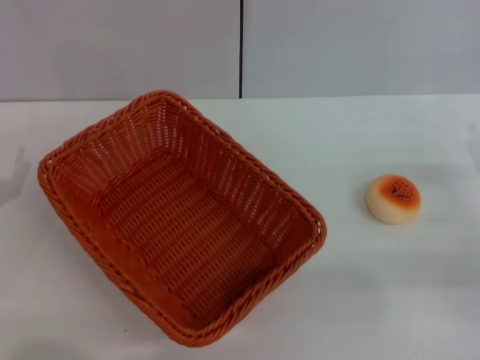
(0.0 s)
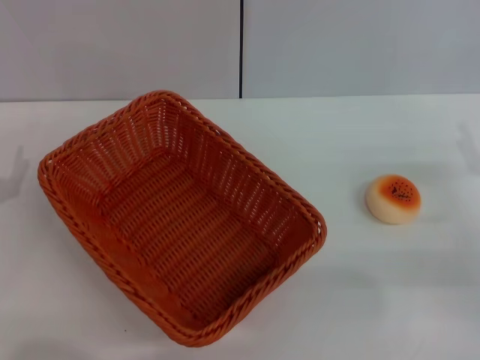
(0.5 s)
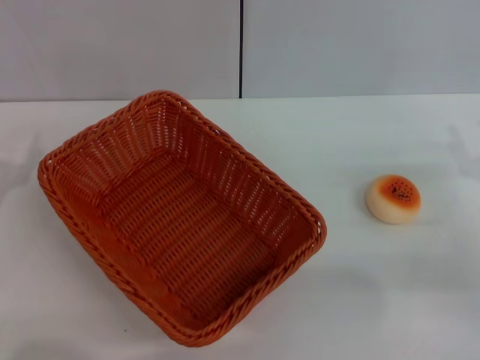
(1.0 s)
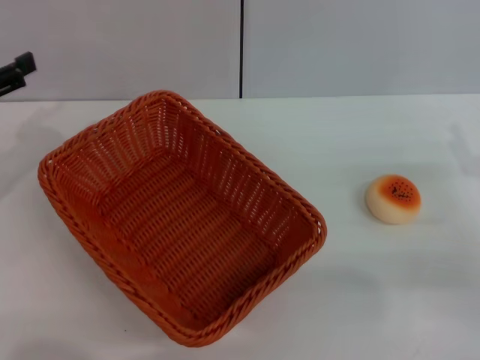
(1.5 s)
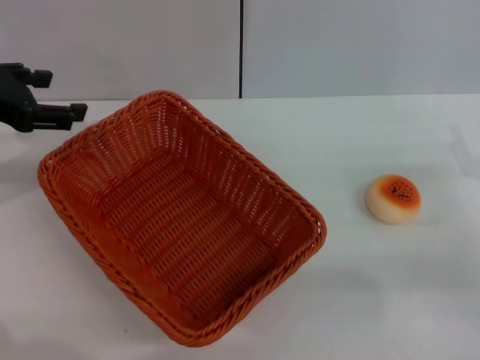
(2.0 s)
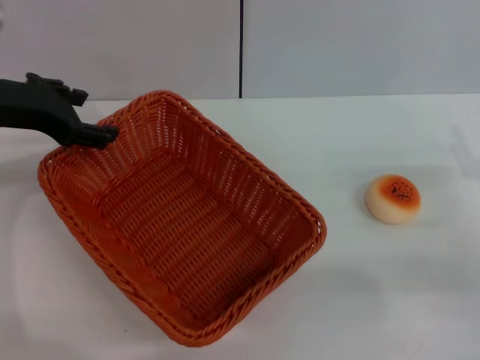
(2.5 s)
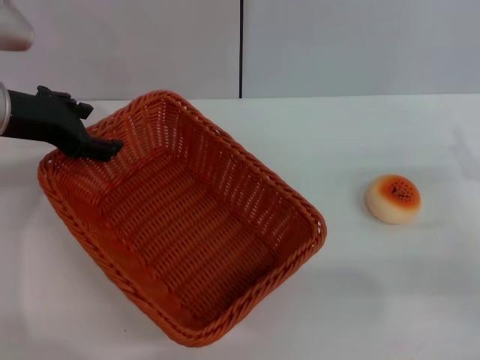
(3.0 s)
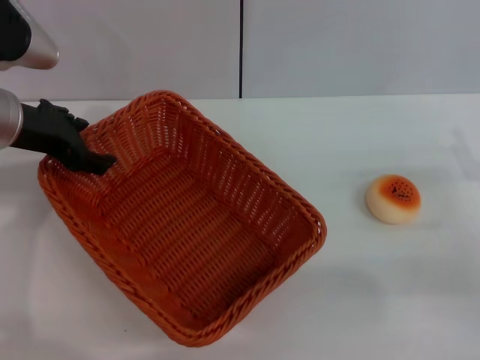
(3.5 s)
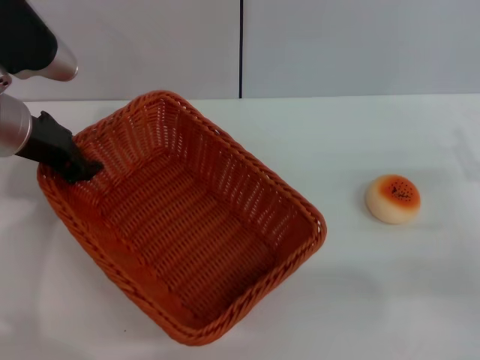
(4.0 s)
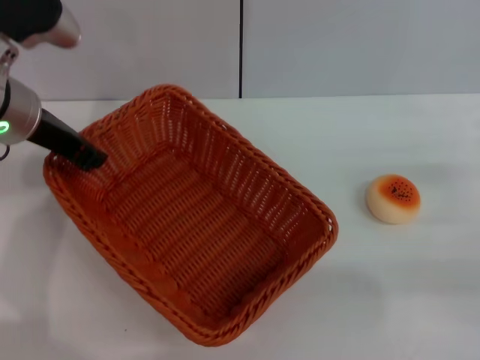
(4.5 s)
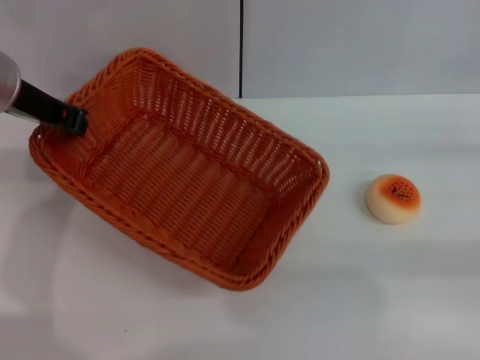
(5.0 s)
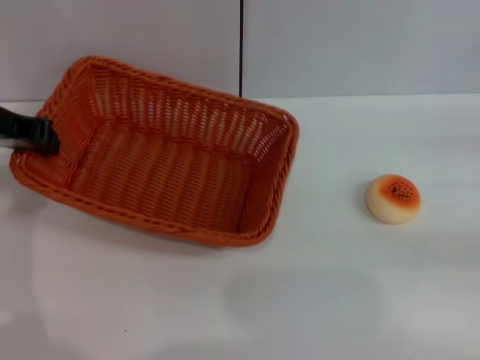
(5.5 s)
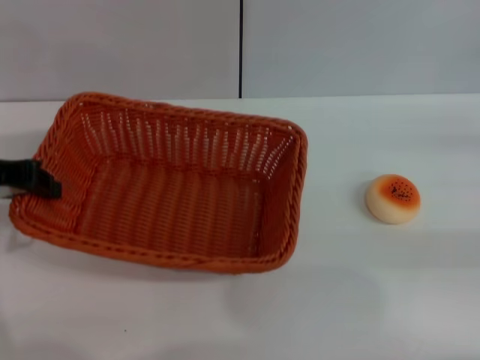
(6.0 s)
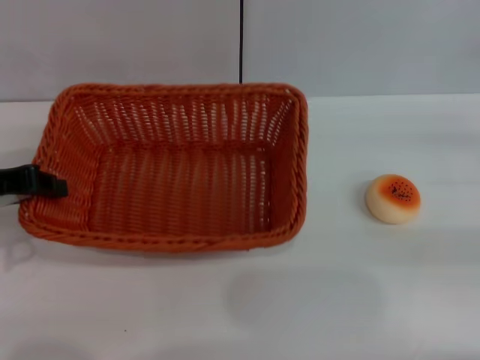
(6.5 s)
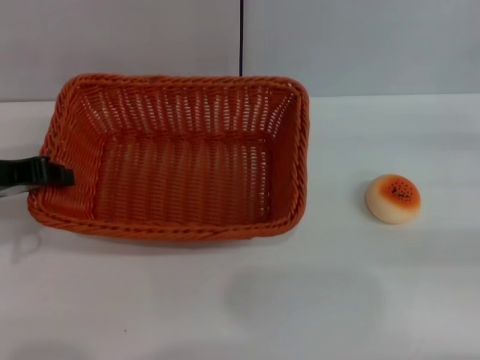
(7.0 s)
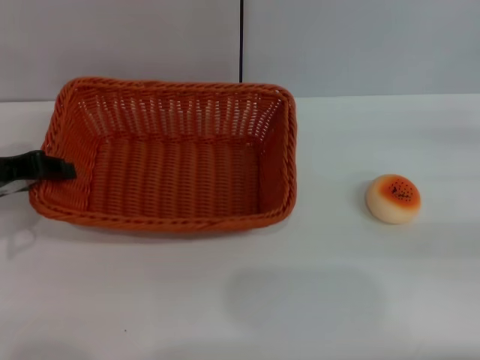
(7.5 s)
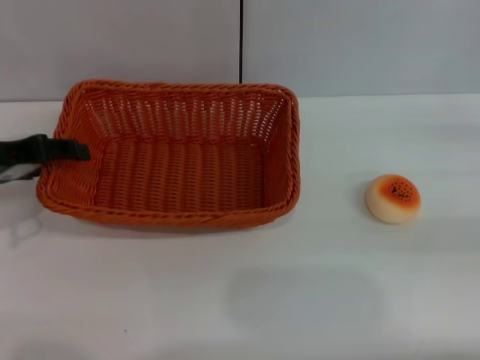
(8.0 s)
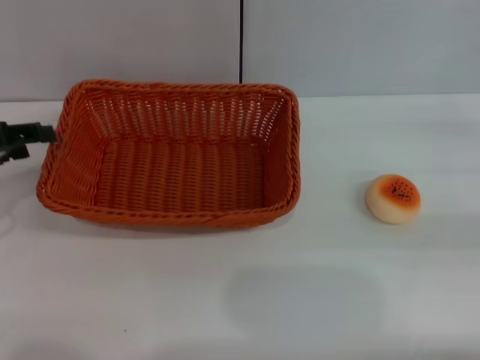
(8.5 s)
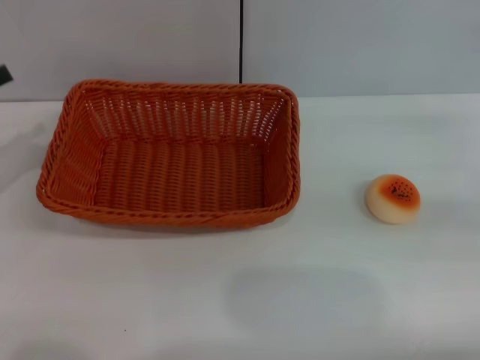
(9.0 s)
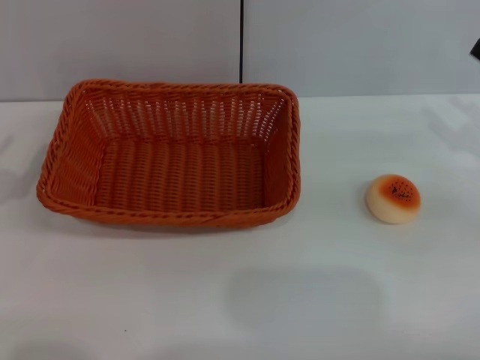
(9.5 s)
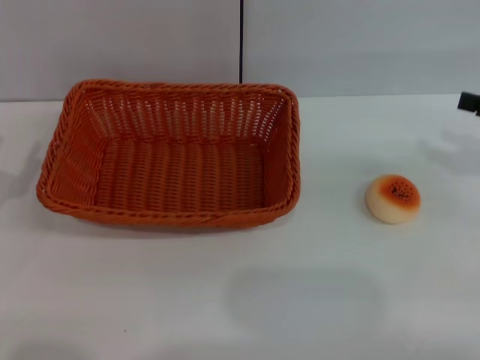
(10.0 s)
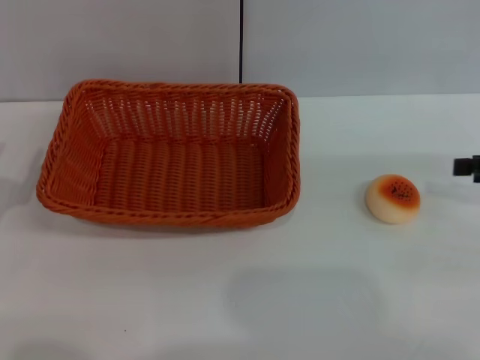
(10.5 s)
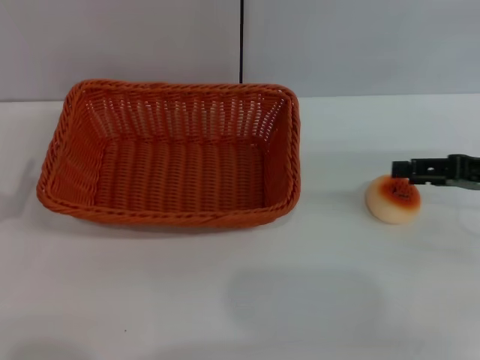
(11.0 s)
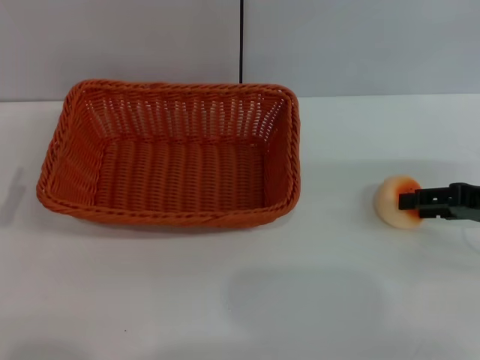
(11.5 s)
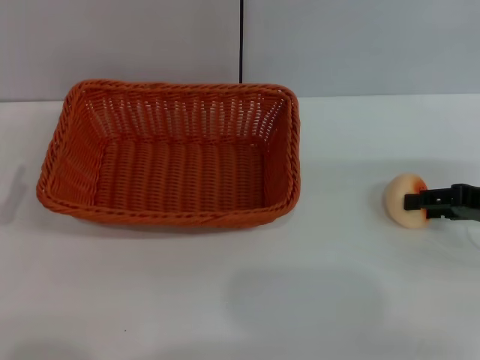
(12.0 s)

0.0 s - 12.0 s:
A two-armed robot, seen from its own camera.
Step, 0.0 s - 8.5 s: Move the basket to the center of view with the left gripper.
0.0 s - 2.0 s: The left gripper goes approximately 20 cm upward and forward.
2.0 s - 4.0 s: The left gripper travels to the right by some 5 cm, and closes up.
4.0 s - 6.0 s: The left gripper goes about 5 cm to the left, and closes; the right gripper goes approximately 10 cm to the right and upward.
6.0 s - 8.0 s: The left gripper opens.
8.0 s - 10.0 s: The left gripper travels downward, backward and to the left by approximately 15 cm.
10.0 s - 12.0 s: The right gripper goes roughly 5 cm downward.

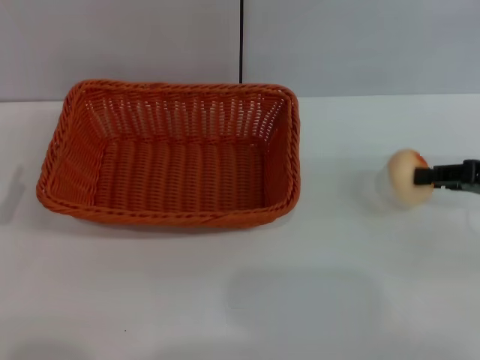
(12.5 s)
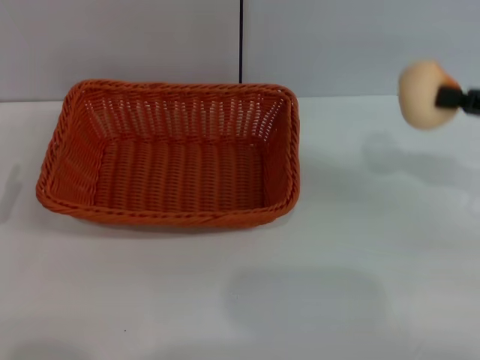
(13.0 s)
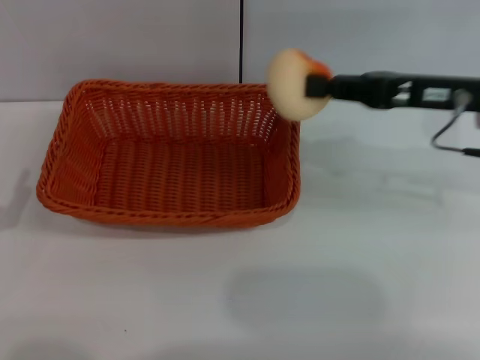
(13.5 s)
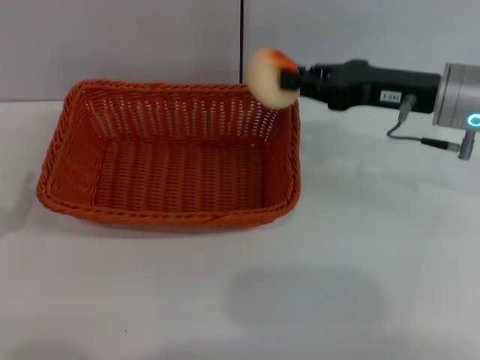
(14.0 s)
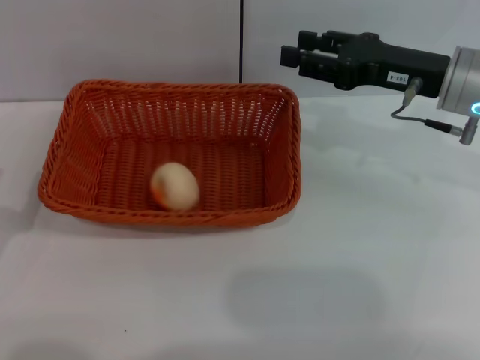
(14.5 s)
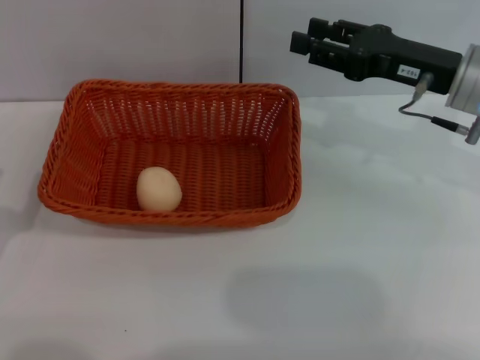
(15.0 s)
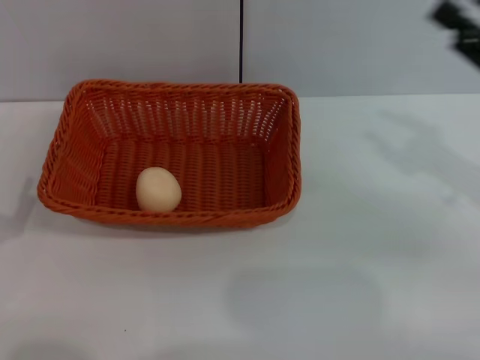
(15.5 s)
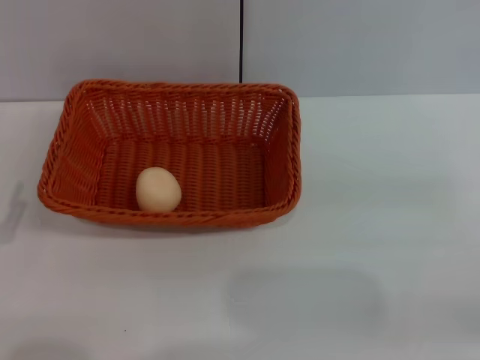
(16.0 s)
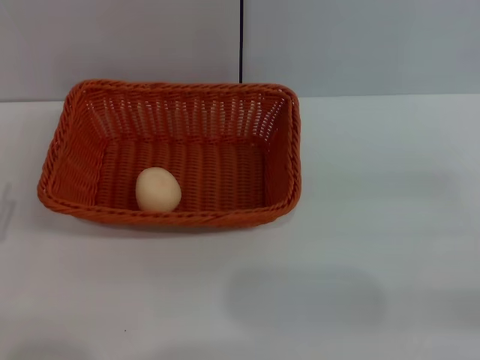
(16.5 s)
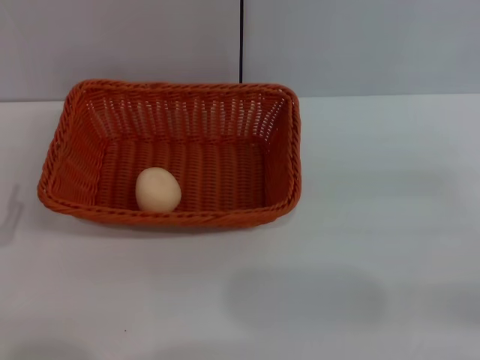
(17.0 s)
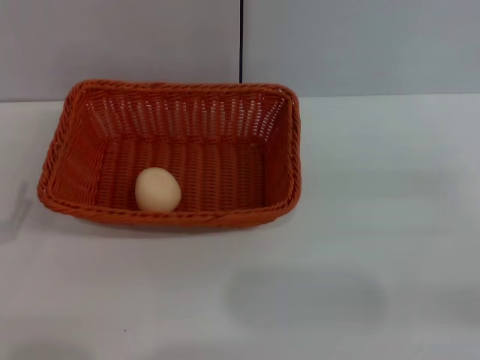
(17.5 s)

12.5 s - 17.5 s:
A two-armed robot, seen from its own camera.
Step, 13.0 s - 14.5 s: Place the egg yolk pastry into the basket with the right gripper.
12.5 s - 15.0 s: The right gripper heads to the left and forward, covering roughly 15 cm, and opens.
15.0 s - 17.5 s: The right gripper is displaced backward and to the right by some 20 cm.

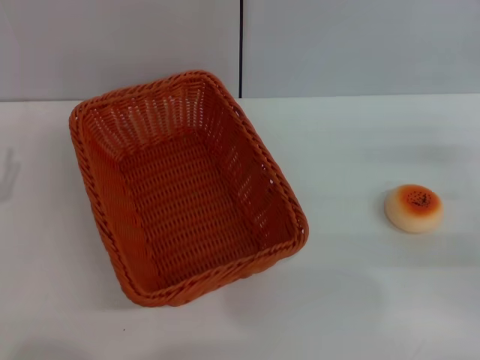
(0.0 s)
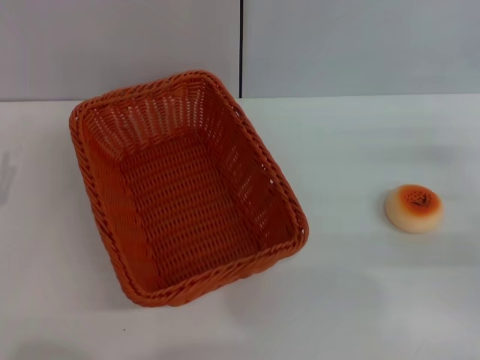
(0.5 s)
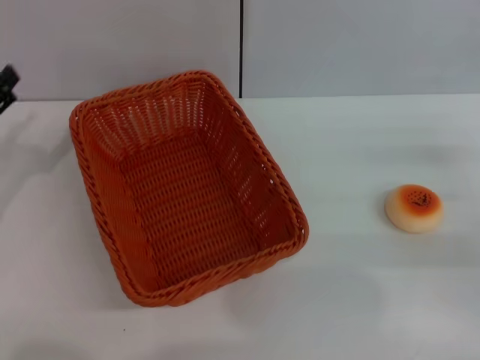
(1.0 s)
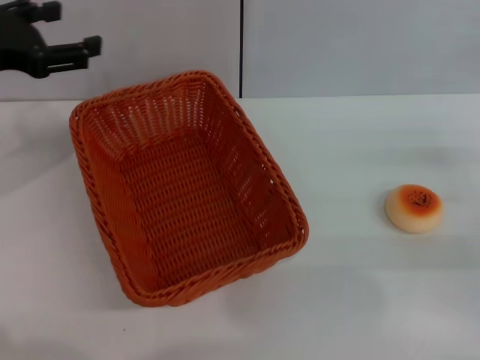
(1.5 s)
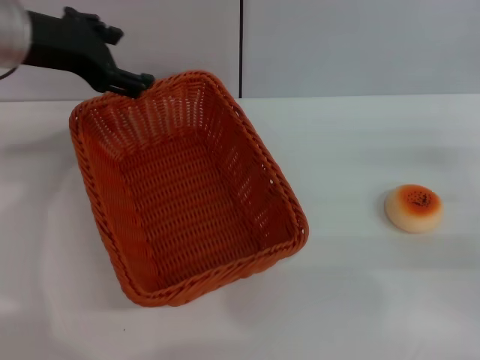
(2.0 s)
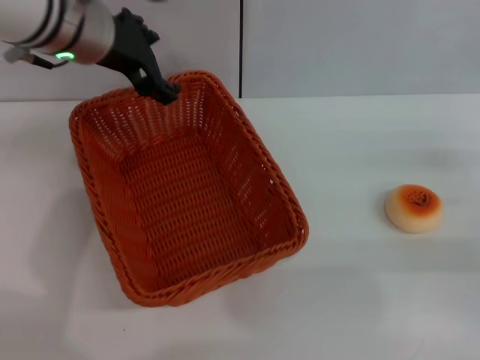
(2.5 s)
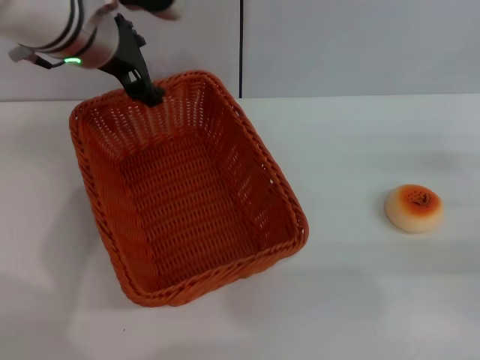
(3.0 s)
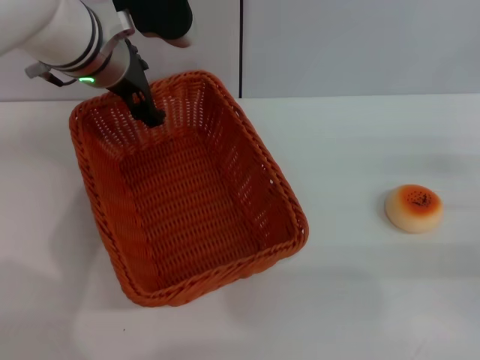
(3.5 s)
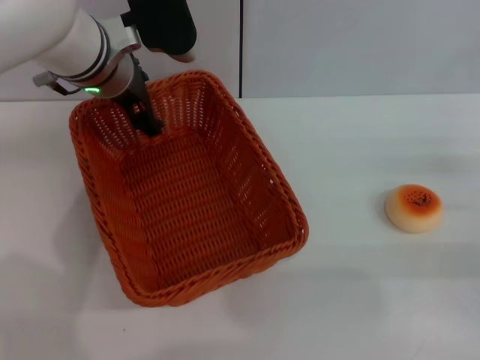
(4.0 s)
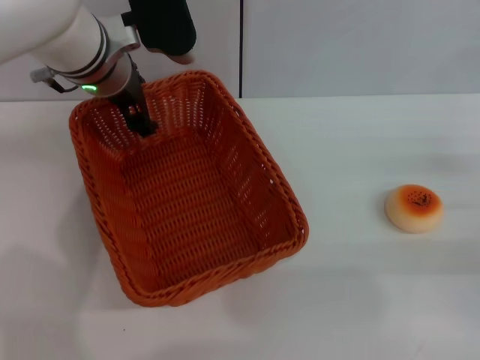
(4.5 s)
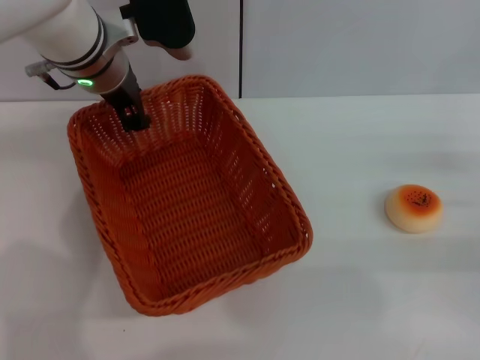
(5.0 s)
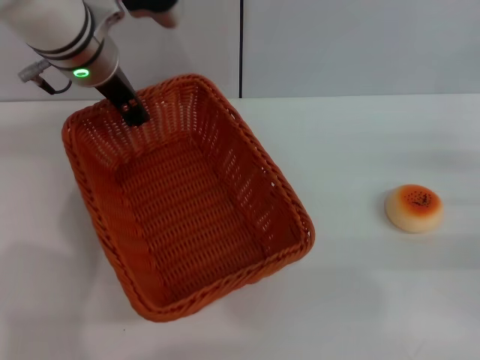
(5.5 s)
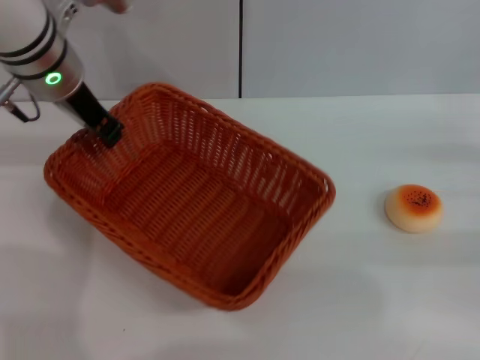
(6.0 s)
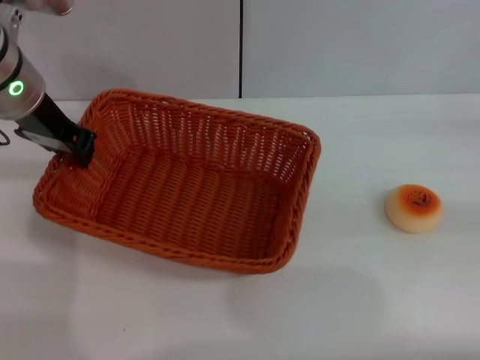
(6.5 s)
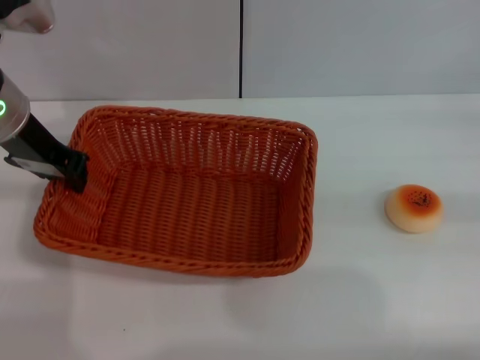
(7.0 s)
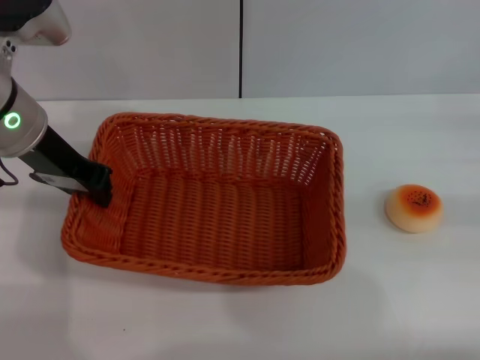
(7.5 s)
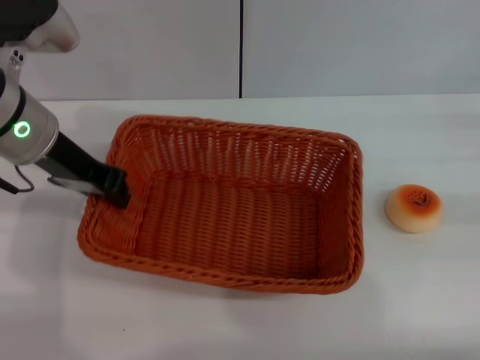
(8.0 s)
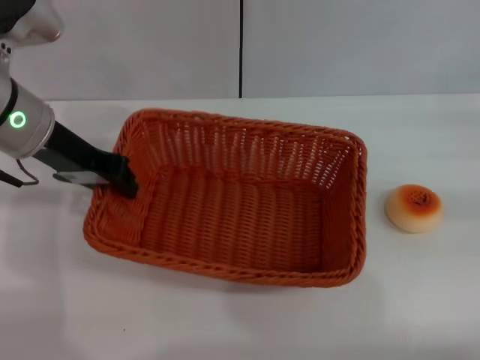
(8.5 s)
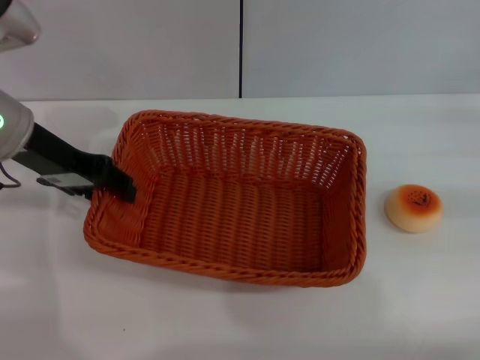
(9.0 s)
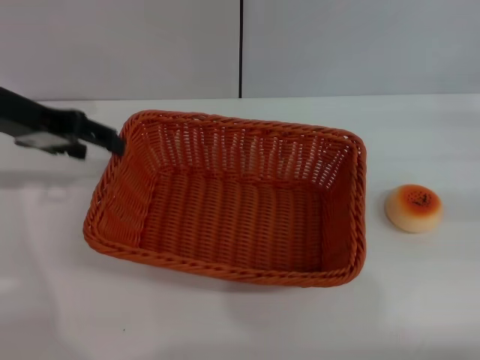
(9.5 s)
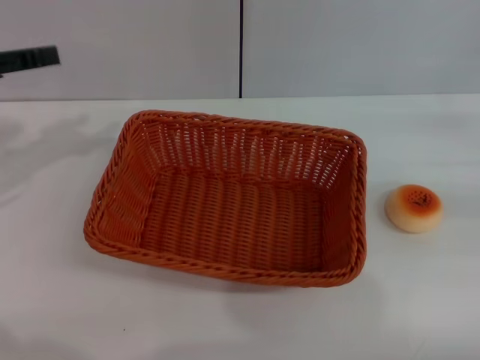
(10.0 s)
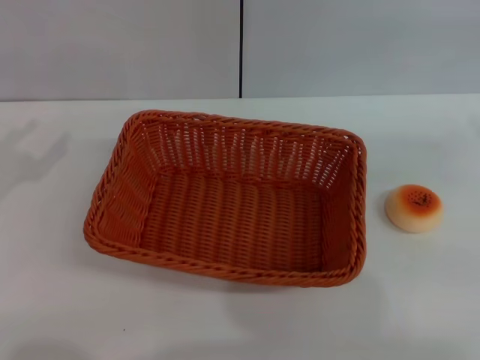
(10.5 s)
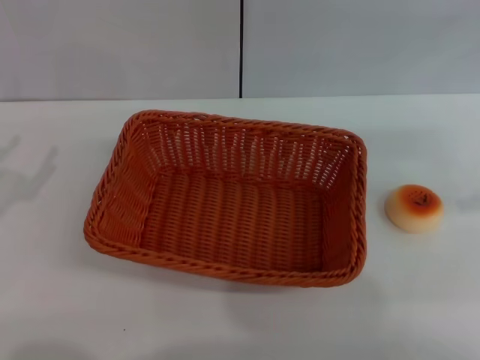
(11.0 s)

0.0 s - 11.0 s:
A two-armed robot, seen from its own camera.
Step, 0.0 s - 9.5 s: Move the basket to the center of view with the left gripper.
0.0 s - 2.0 s: The left gripper heads upward, forward and to the right, covering some 30 cm.
2.0 s - 3.5 s: The left gripper moves to the right, about 10 cm.
3.5 s - 5.5 s: The left gripper closes its fingers.
5.5 s - 7.5 s: The right gripper travels to the right and upward by about 10 cm. Meanwhile the left gripper shifts about 10 cm to the left and backward.
7.5 s - 9.0 s: The left gripper opens.
9.0 s - 11.0 s: The left gripper shifts roughly 20 cm backward, to the left and downward, and opens.
